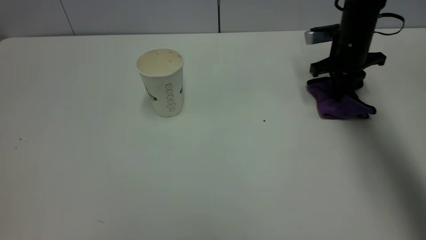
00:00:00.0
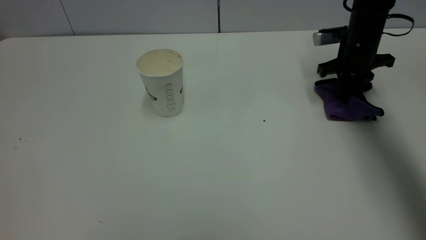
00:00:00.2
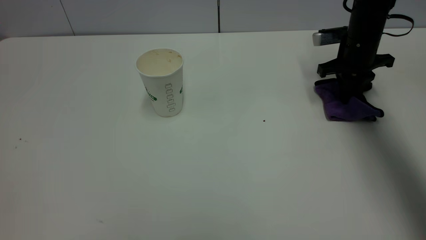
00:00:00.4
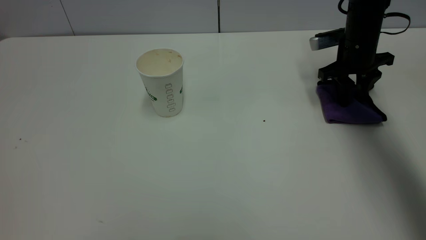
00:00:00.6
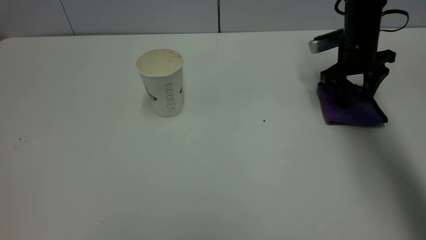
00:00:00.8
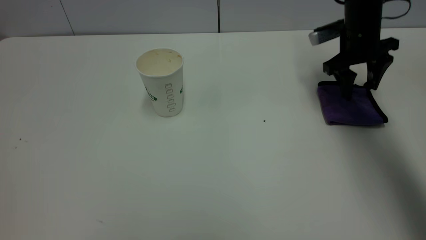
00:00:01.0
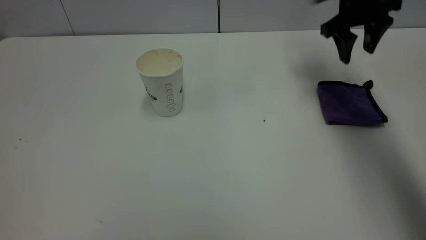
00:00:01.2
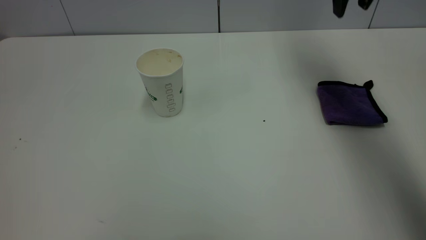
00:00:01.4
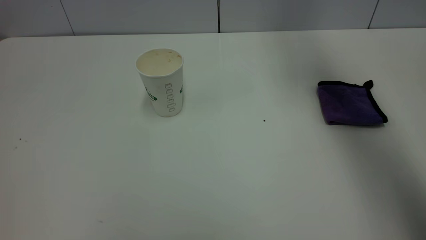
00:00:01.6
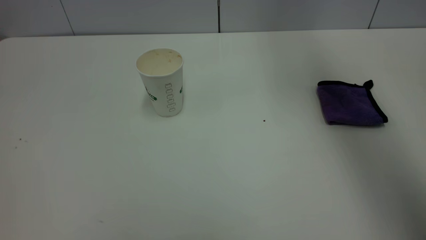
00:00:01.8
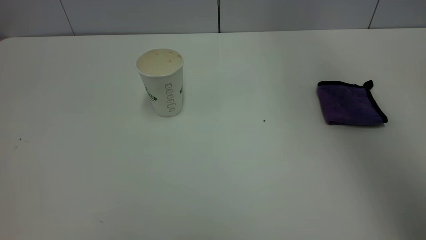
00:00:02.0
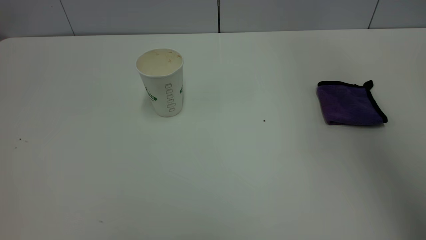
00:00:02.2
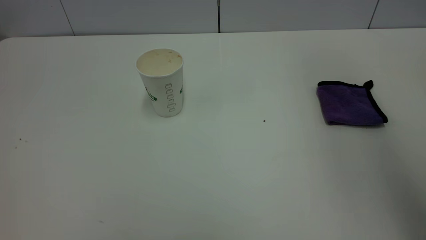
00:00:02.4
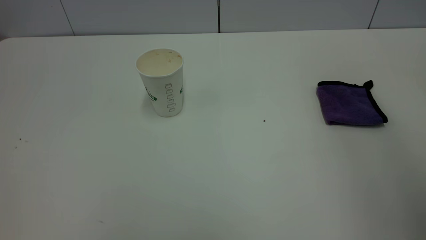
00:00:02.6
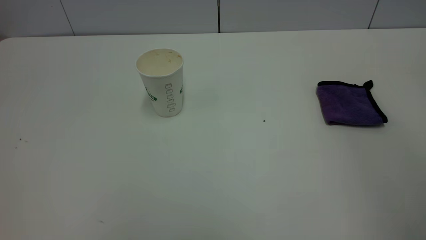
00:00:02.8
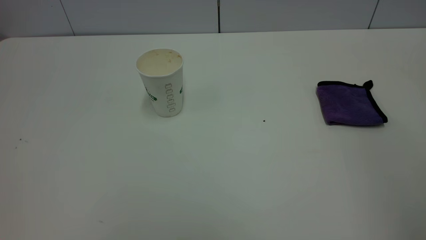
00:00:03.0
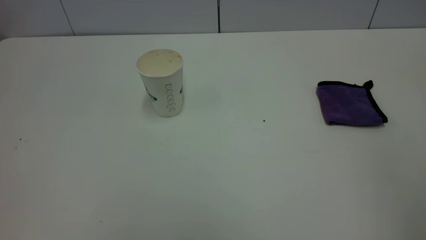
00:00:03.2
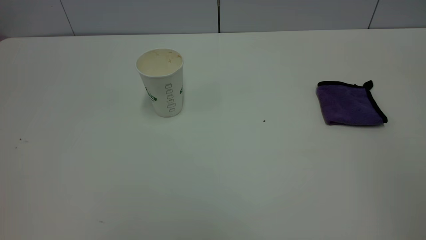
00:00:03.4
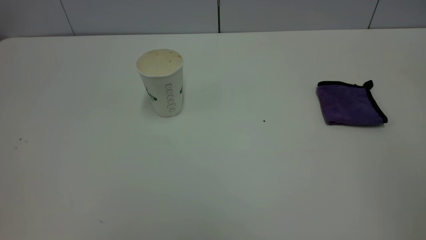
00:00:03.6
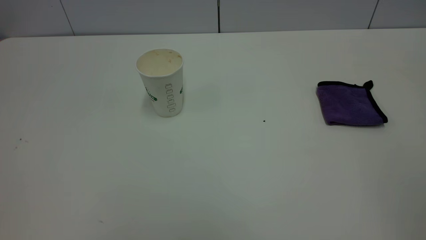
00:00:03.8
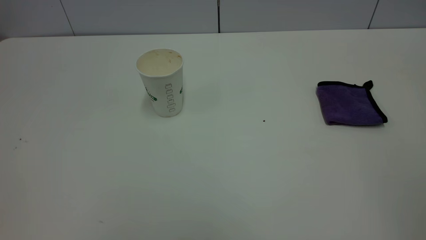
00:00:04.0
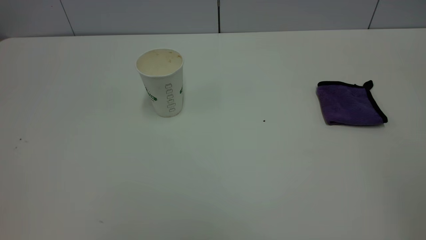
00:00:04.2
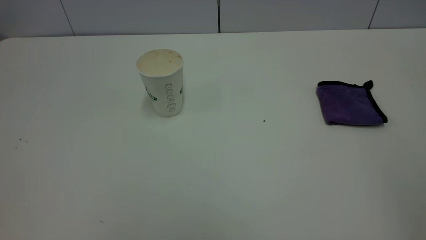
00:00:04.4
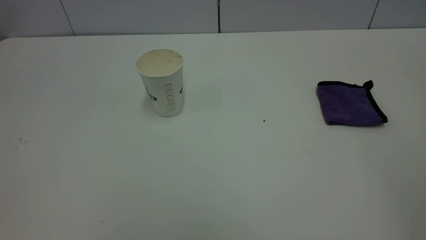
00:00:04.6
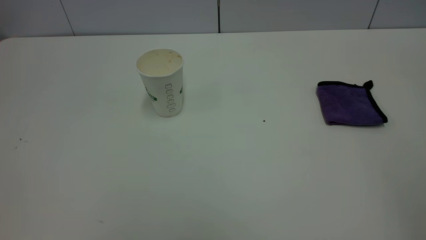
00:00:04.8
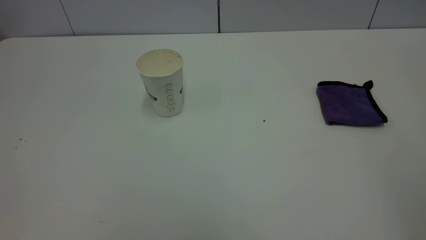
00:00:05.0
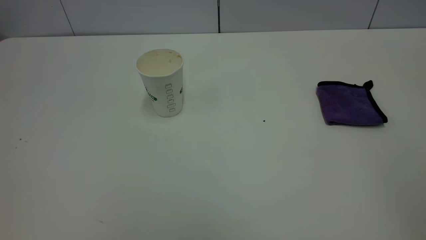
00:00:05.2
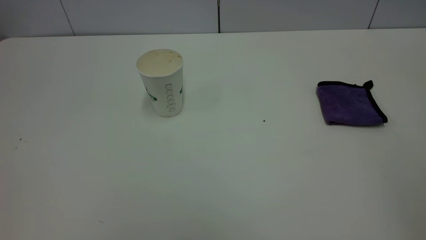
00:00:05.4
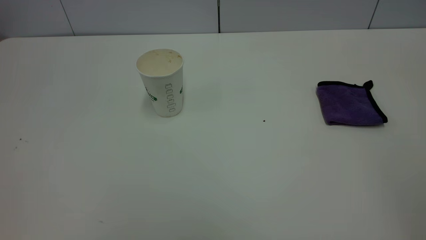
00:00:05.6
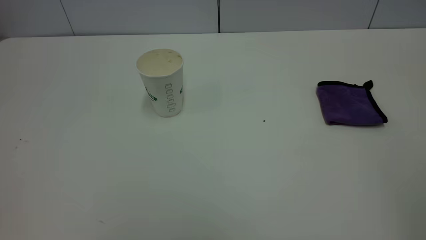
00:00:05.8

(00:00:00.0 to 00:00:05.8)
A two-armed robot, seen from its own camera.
Task of the whole recording: the left gripper pick up the fallen cup and place it upright, the right gripper grasp the purple rag and wipe the tea stain on the table, the right gripper put the purple rag back in its original position.
00:00:00.0 - 00:00:01.4: The right gripper goes about 20 cm upward, and opens up.
00:00:01.4 - 00:00:02.8: The right gripper goes about 35 cm backward.
00:00:04.4 - 00:00:05.8: Both grippers stay about where they are.
